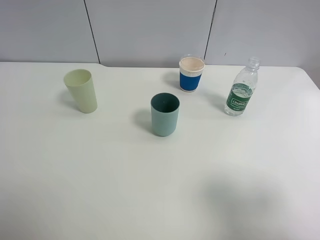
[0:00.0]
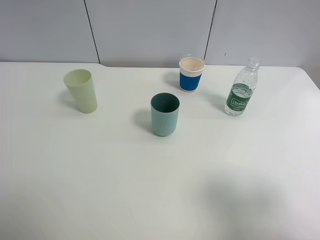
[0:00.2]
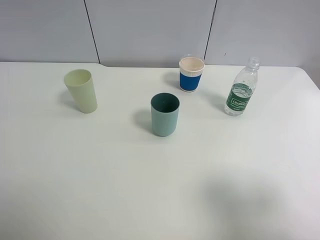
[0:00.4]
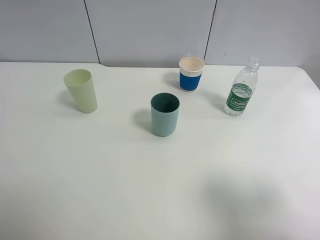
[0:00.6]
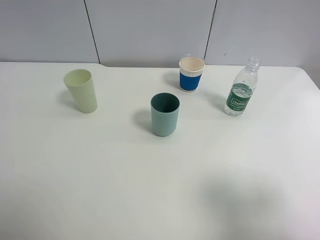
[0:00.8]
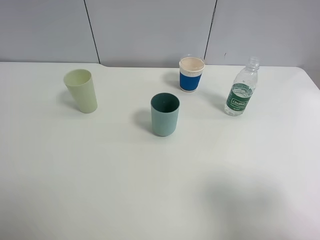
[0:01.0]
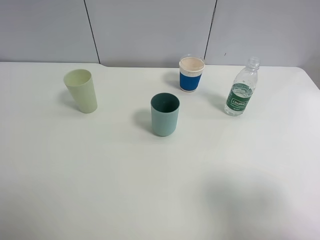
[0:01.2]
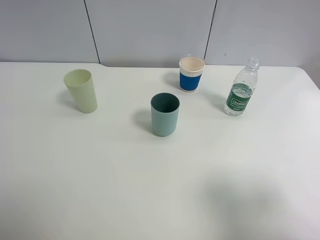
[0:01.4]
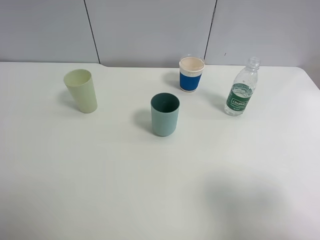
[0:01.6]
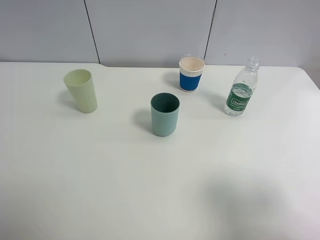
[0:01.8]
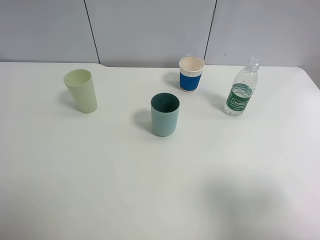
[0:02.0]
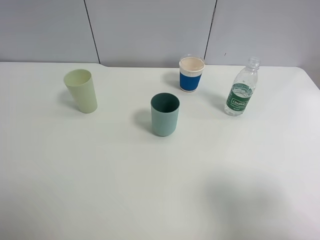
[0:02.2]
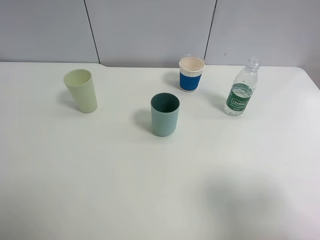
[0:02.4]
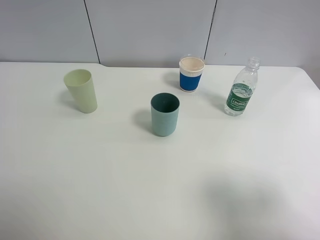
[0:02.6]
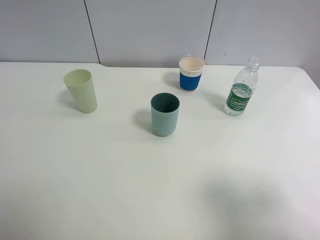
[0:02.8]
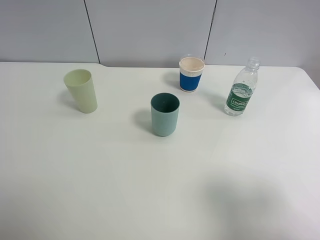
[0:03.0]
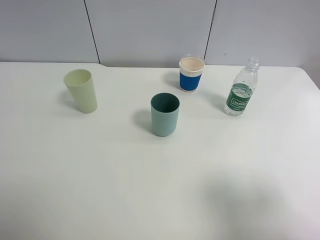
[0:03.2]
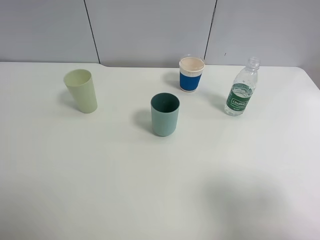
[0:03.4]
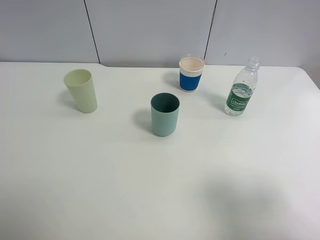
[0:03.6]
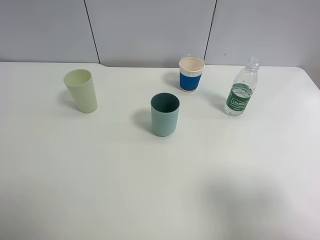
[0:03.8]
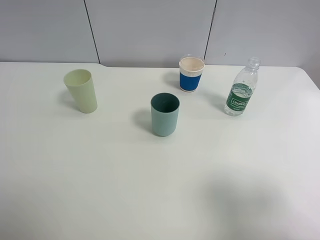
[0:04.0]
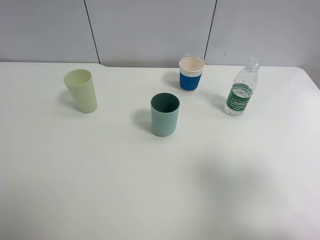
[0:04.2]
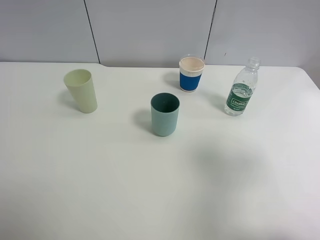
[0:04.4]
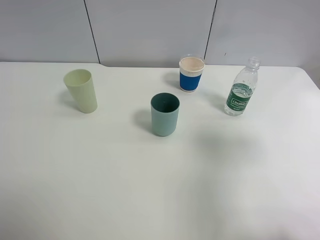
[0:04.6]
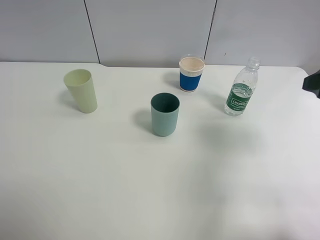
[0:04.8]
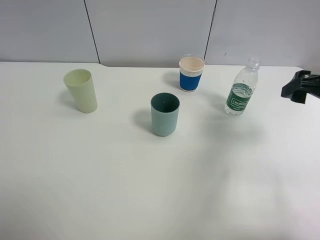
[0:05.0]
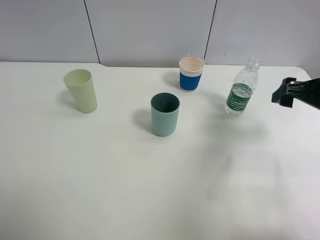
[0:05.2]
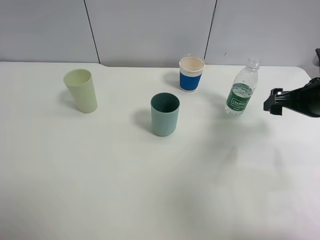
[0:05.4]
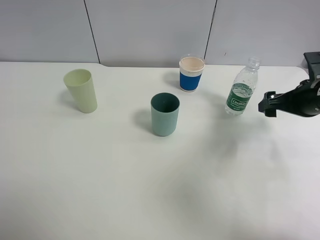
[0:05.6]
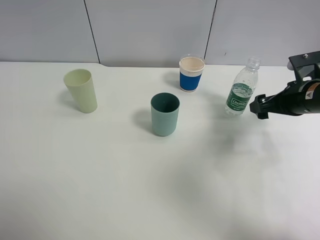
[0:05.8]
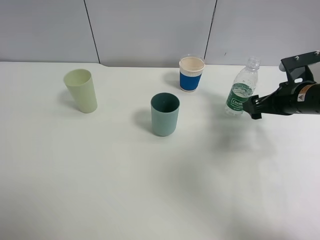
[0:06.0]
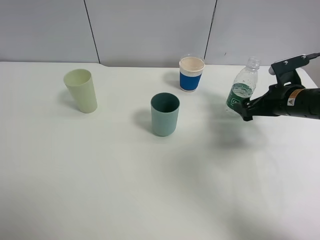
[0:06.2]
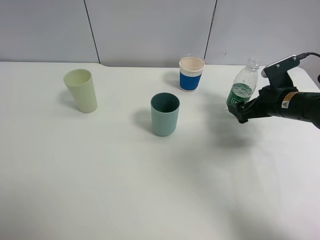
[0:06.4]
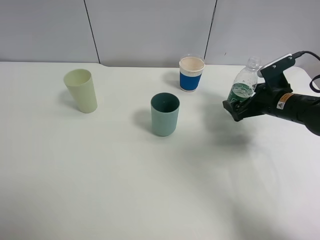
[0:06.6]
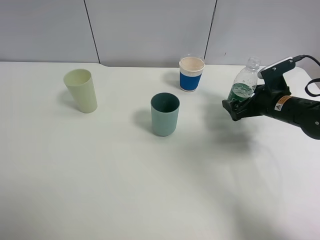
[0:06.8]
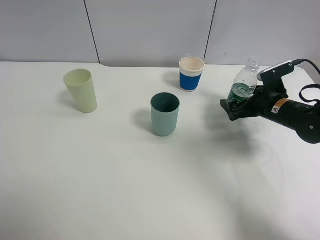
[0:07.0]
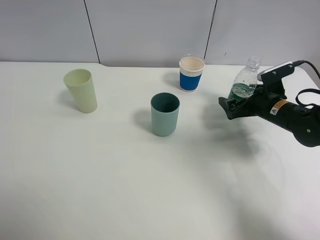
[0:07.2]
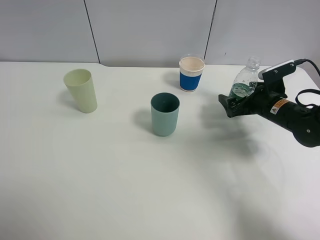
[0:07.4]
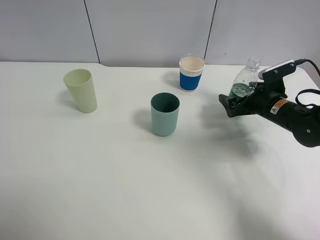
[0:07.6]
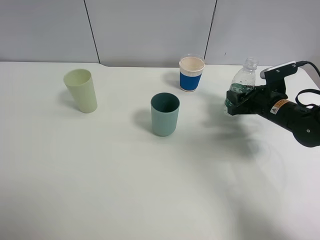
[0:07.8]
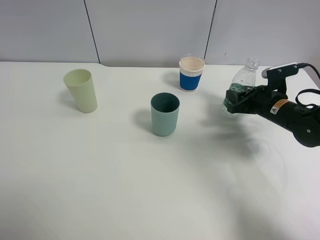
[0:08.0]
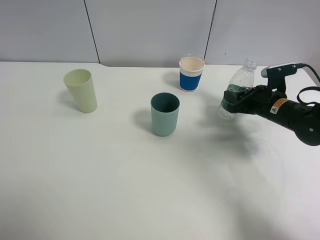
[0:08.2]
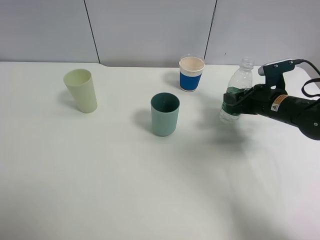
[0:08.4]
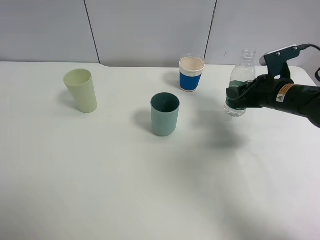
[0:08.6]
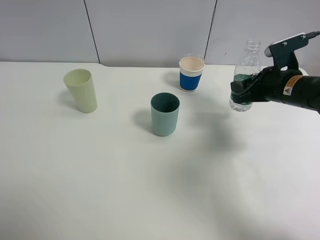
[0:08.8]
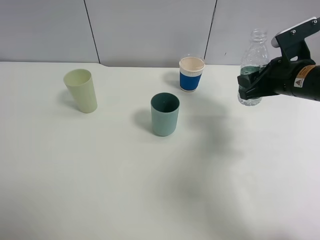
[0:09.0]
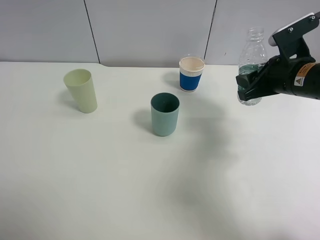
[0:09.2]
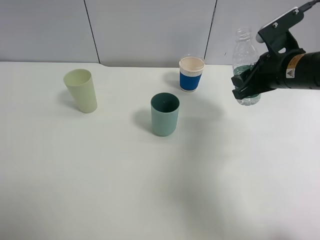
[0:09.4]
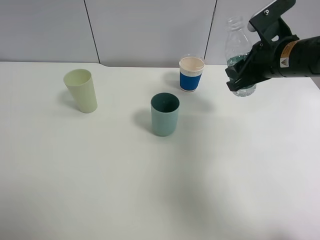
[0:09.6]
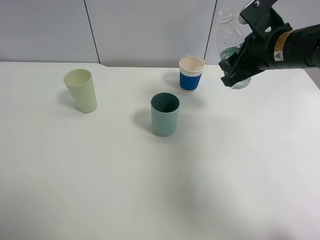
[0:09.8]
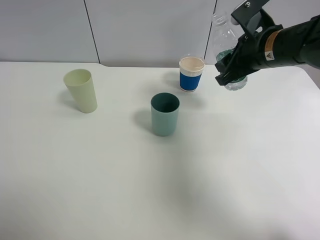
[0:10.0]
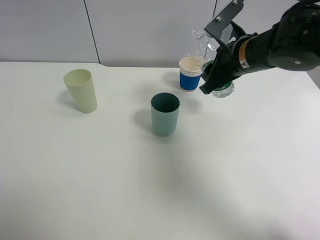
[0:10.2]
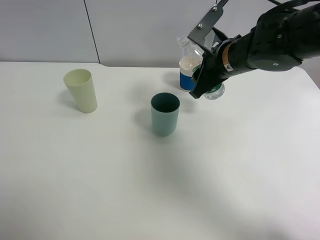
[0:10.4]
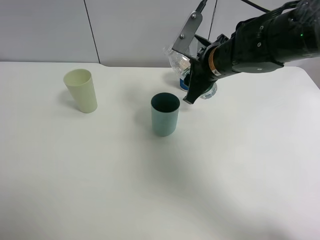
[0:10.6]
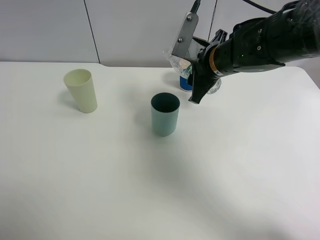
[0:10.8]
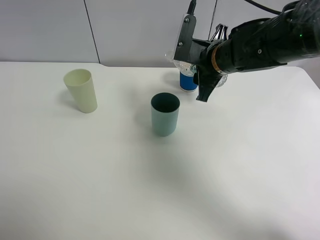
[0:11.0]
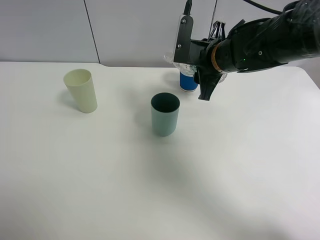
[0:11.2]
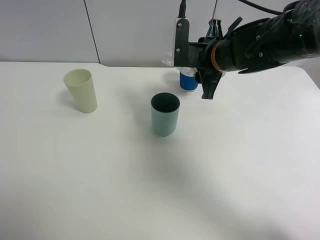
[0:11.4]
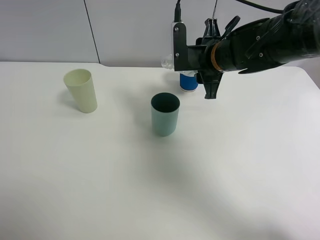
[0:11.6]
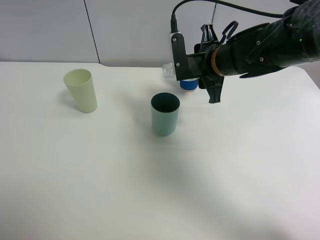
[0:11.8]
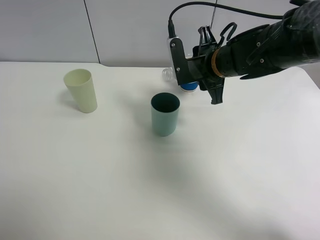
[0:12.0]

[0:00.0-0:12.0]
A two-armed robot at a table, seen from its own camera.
Task of the whole recording: use a clamp to hold the bottle of the drink, pour the beverage into a random cup, then clamp the cup containing the drink and pour the drink into another random cup.
Step, 0:00.0 to 0:08.4: Pick up the water bottle with right gripper.
0:00.0 to 0:03.0: The two grippers keep their place.
0:03.0 to 0:04.4: The right gripper heads forward, covering roughly 10 cm.
0:04.4 to 0:06.0: The right gripper travels forward and downward by about 25 cm.
0:06.0 to 0:07.6: The right gripper shifts roughly 5 cm downward.
0:07.6 to 0:09.0: The right gripper goes approximately 10 cm upward, and closes up.
0:09.0 to 0:10.4: The right gripper heads to the left, covering roughly 15 cm.

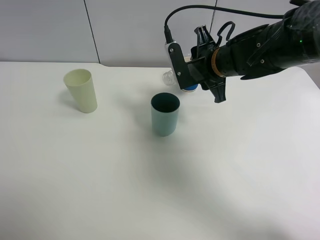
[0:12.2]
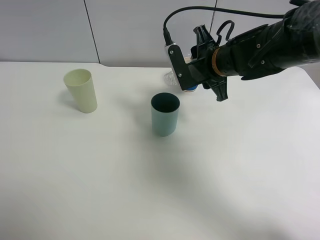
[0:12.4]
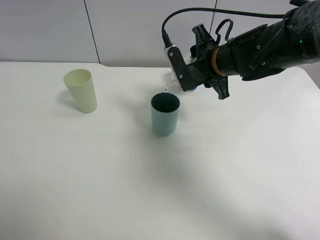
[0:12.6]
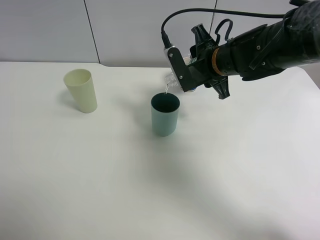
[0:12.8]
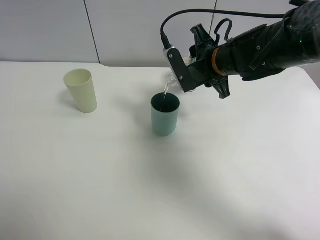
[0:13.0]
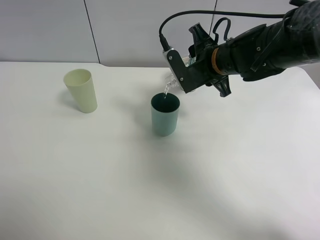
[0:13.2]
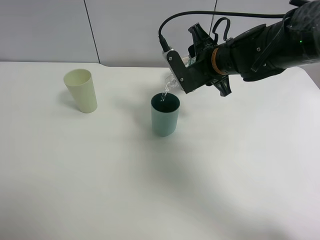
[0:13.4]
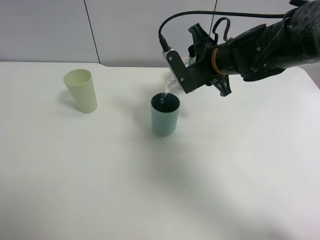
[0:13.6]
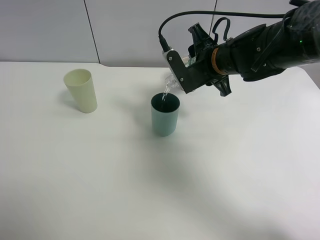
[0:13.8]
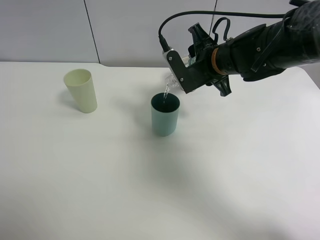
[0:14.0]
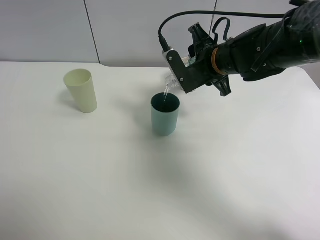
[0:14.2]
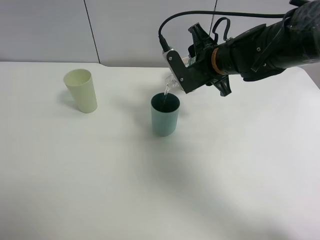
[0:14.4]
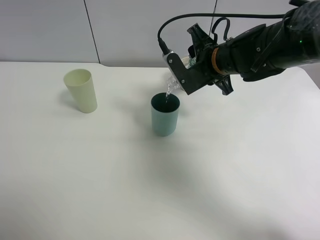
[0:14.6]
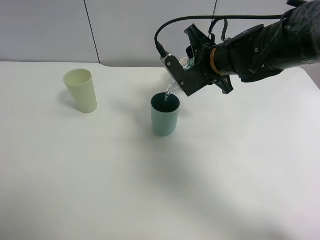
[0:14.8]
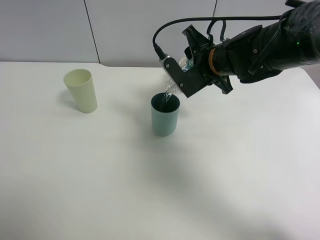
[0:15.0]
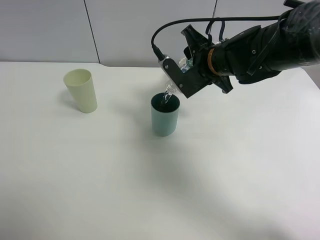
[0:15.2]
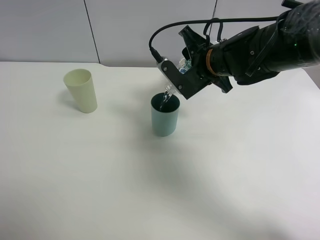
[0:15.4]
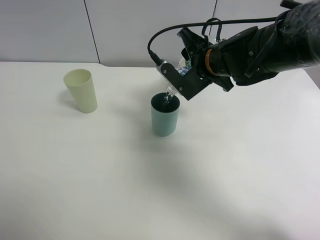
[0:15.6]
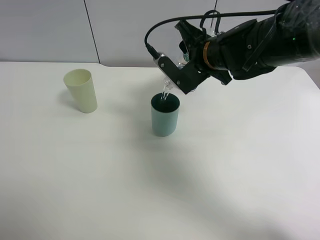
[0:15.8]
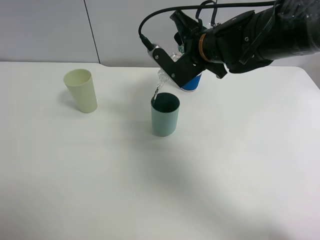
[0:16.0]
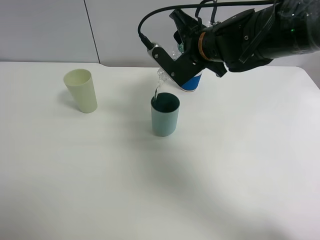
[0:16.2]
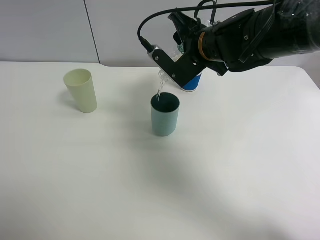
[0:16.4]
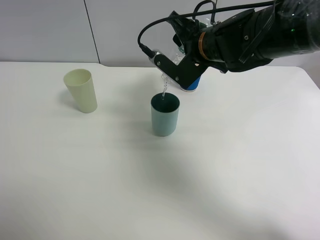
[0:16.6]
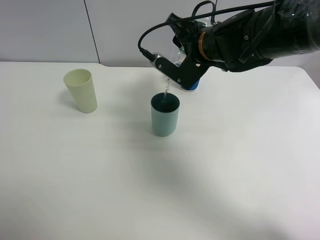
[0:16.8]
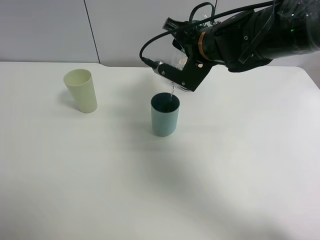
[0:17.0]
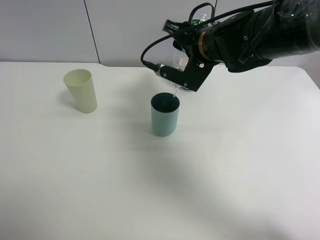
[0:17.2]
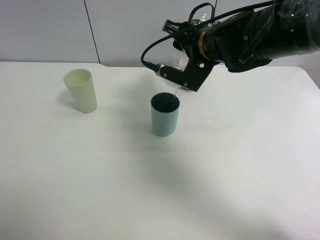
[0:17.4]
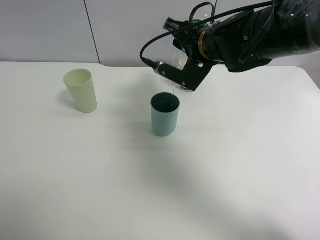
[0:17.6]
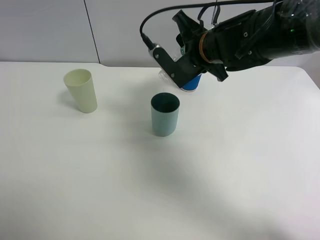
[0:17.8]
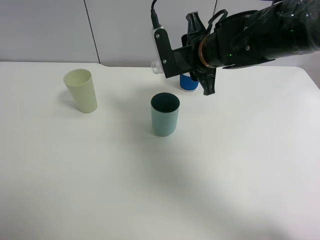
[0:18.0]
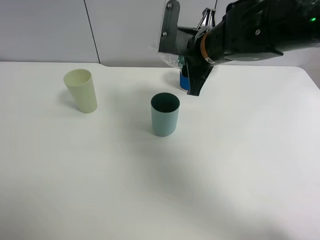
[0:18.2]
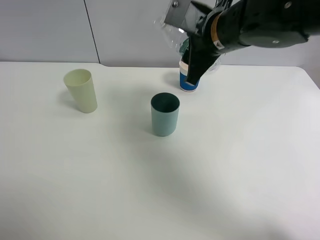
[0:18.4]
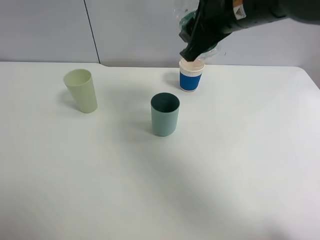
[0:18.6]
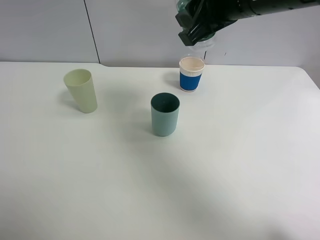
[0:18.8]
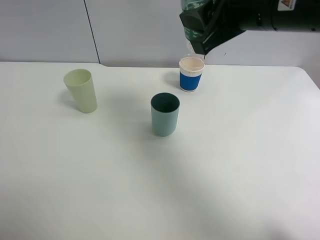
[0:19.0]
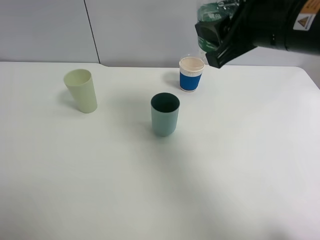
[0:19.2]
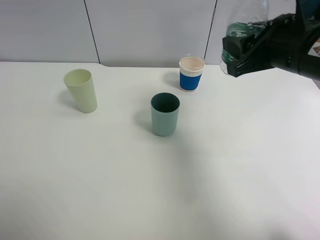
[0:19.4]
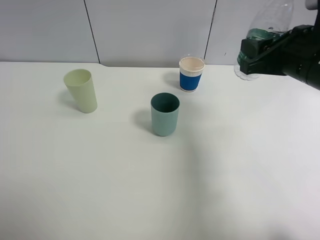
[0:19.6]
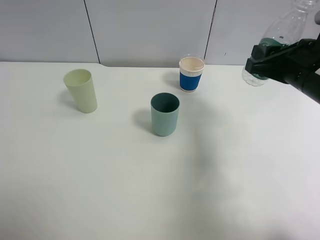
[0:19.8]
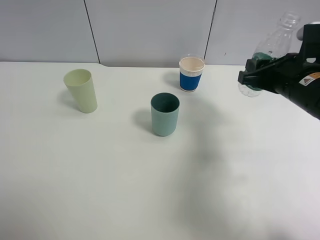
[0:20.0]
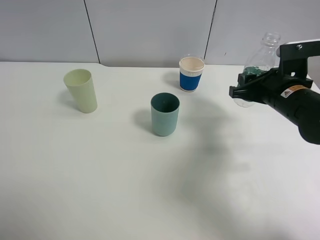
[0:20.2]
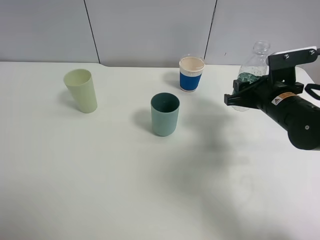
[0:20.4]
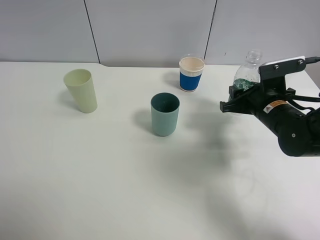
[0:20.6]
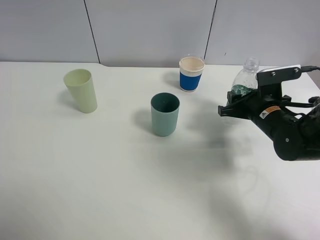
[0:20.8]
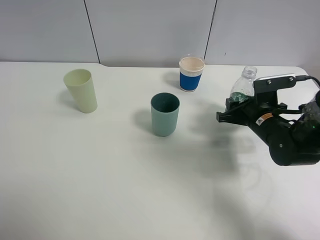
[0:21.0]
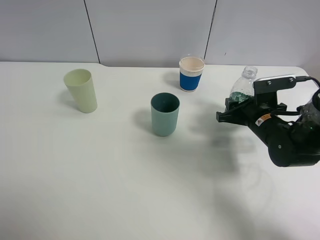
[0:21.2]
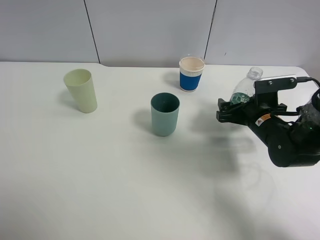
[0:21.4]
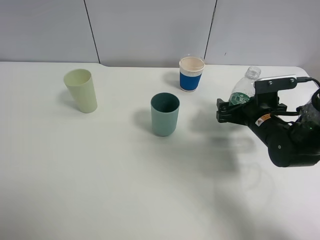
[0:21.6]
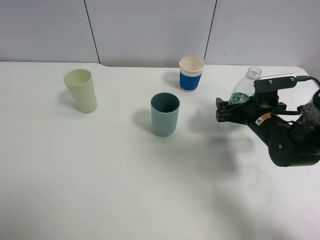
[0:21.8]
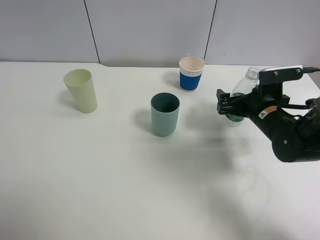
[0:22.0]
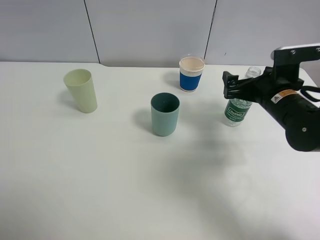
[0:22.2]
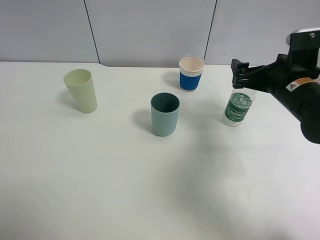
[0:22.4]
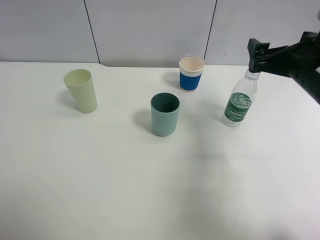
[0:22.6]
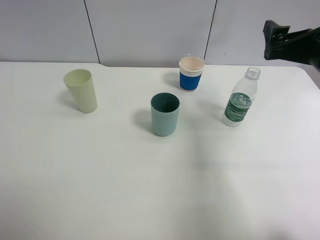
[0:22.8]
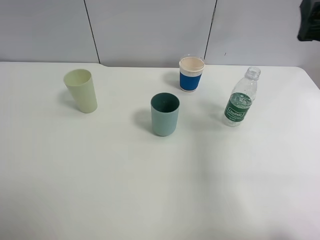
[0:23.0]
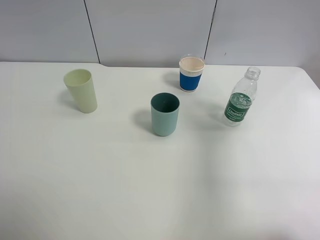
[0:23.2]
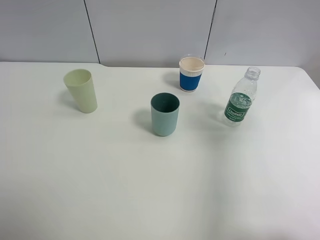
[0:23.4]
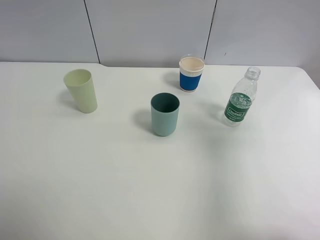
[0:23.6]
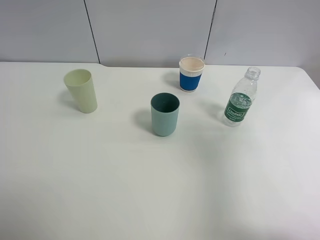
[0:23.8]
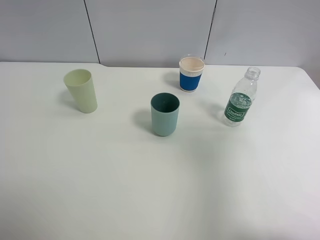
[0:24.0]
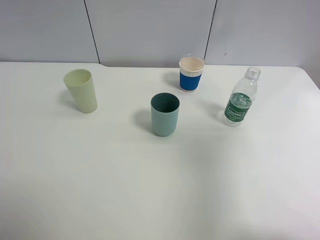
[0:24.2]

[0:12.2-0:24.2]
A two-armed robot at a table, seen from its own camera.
Task of the whole recording: use a clamp to hold the bottle of the drink, pour the beverage into a random cup, then clamp the cup containing the drink and pour the drink into another random cup.
Step, 0:12.2 to 0:18.0: Pour water into the blue plastic cup with right gripper.
Step, 0:18.2 to 0:22.0: Place the water bottle on the table with right gripper.
0:12.2 to 0:13.8: The grippers make only small movements.
0:13.8 to 0:15.2: The grippers make only small movements.
0:15.2 to 0:16.6: The grippers move only a little.
0:18.2 to 0:19.8: The right gripper is displaced to the right and backward by roughly 15 cm.
0:19.8 to 0:21.2: The right gripper travels downward by approximately 15 cm.
0:21.2 to 0:22.6: The right gripper is displaced upward by approximately 15 cm, and opens its fingers.
0:22.6 to 0:24.2: The right gripper shifts about 20 cm backward, upward and to the right.
